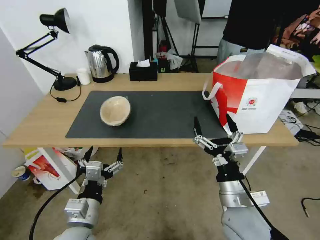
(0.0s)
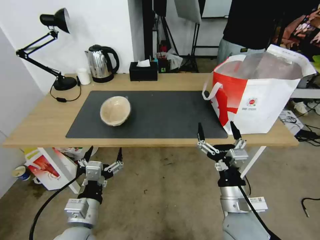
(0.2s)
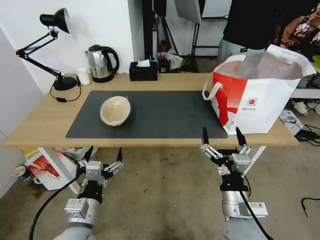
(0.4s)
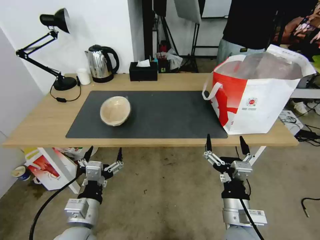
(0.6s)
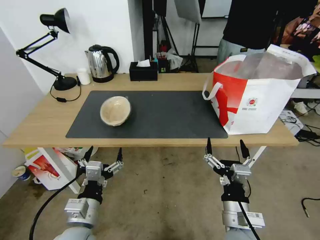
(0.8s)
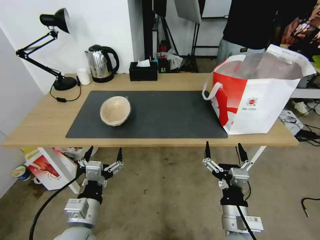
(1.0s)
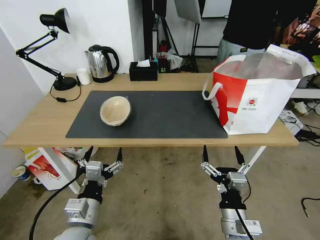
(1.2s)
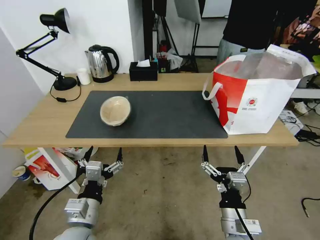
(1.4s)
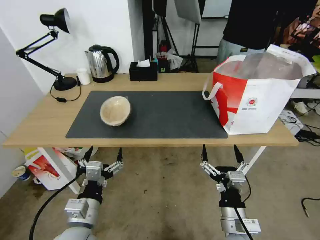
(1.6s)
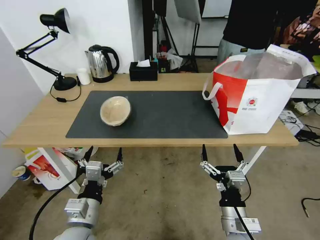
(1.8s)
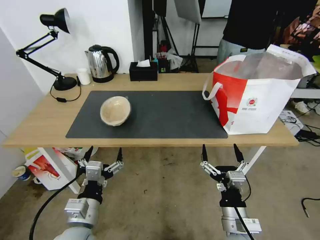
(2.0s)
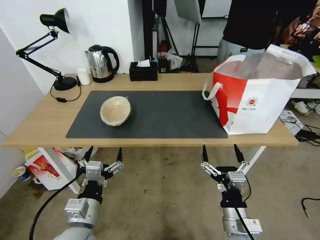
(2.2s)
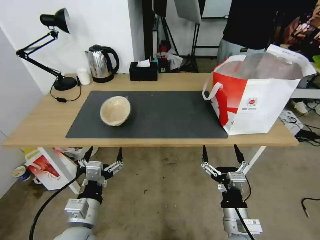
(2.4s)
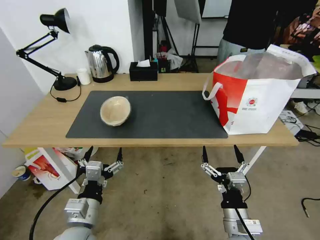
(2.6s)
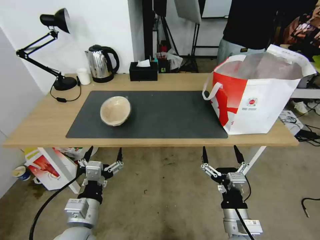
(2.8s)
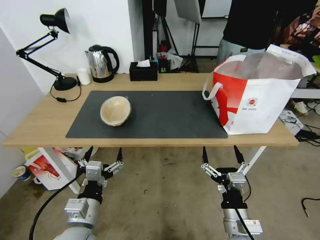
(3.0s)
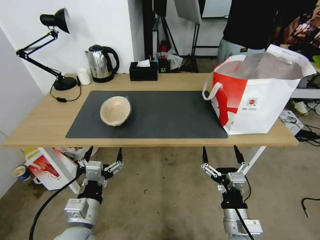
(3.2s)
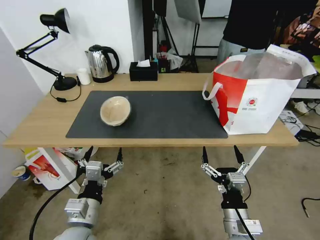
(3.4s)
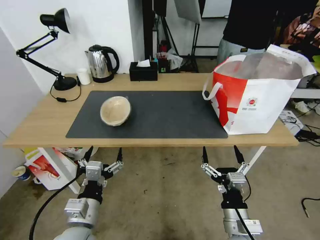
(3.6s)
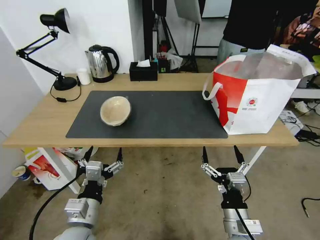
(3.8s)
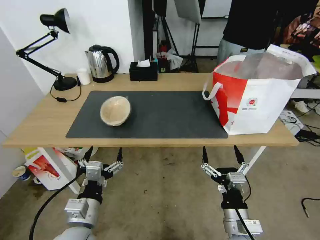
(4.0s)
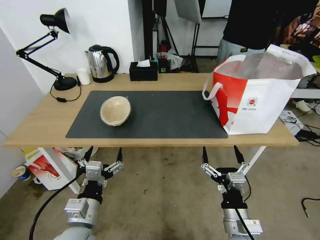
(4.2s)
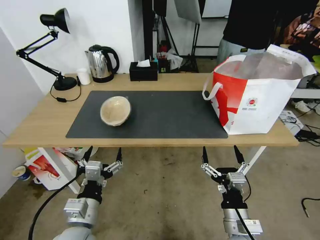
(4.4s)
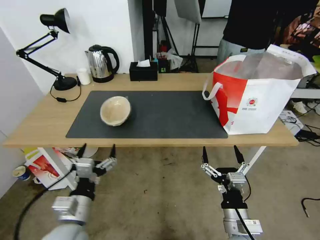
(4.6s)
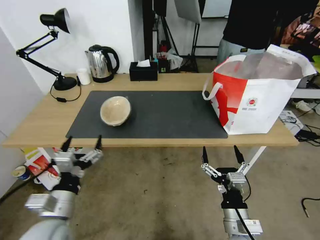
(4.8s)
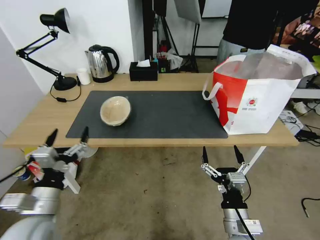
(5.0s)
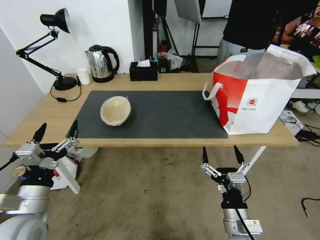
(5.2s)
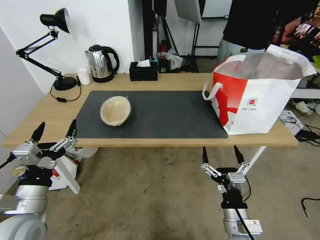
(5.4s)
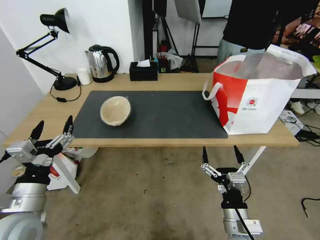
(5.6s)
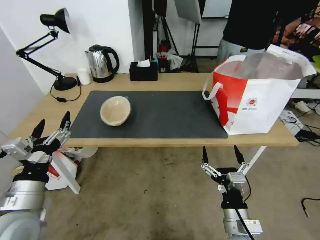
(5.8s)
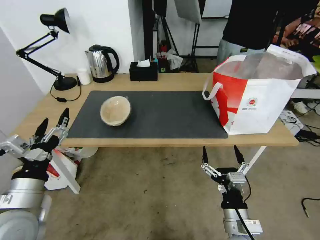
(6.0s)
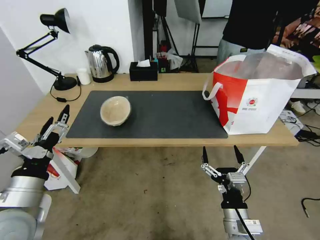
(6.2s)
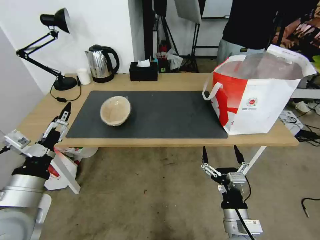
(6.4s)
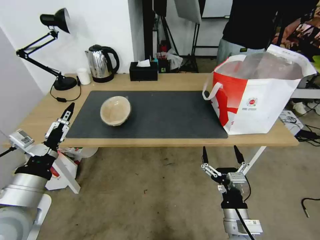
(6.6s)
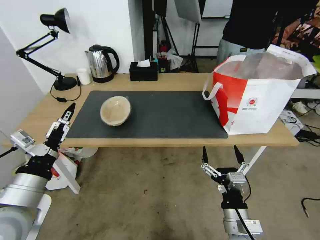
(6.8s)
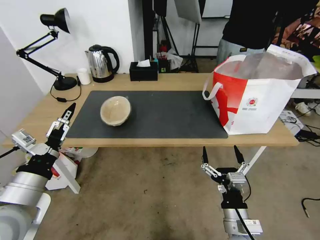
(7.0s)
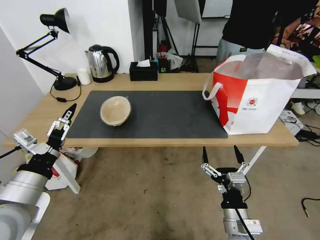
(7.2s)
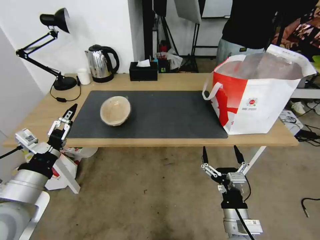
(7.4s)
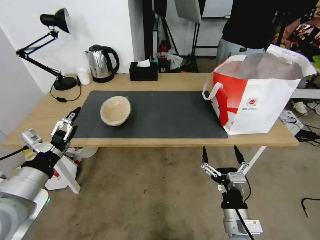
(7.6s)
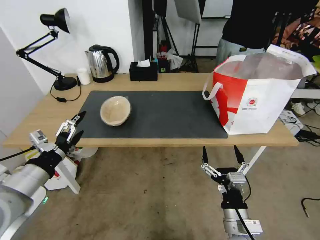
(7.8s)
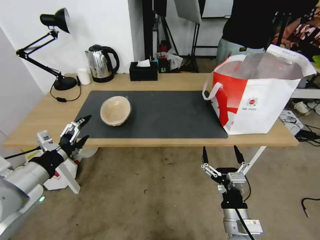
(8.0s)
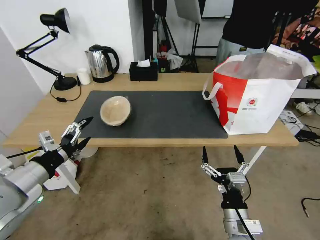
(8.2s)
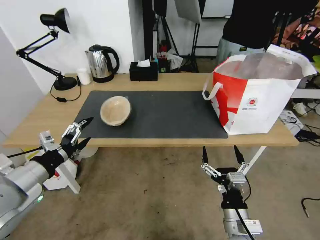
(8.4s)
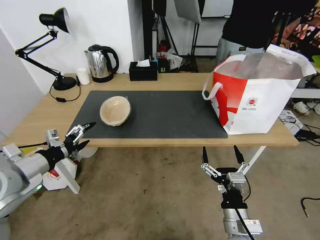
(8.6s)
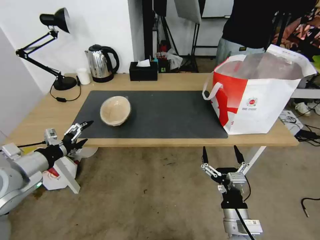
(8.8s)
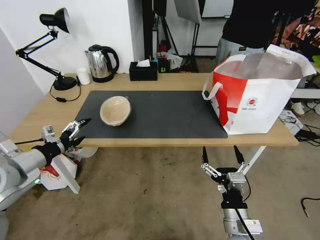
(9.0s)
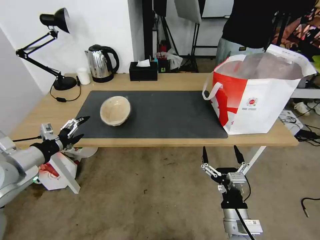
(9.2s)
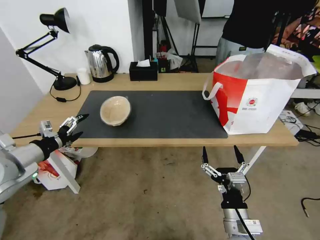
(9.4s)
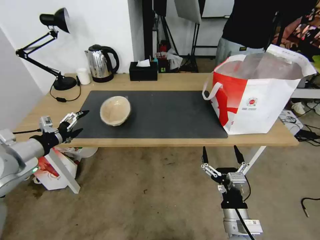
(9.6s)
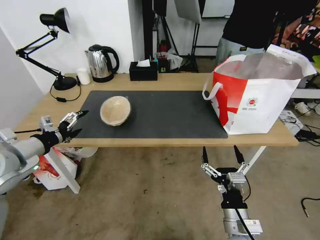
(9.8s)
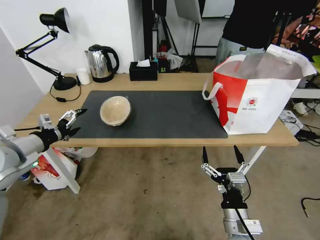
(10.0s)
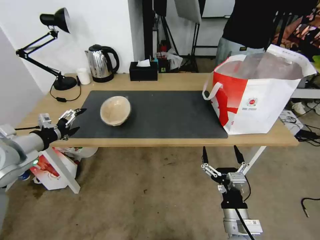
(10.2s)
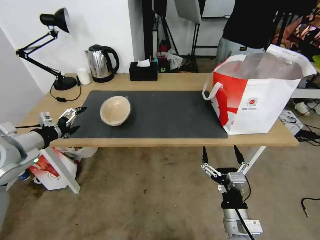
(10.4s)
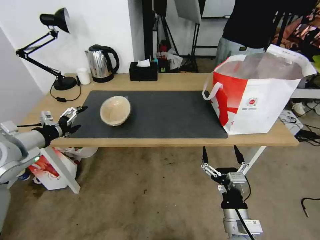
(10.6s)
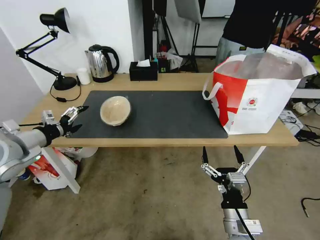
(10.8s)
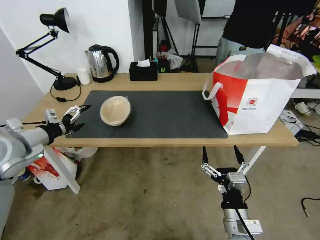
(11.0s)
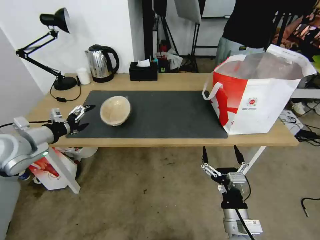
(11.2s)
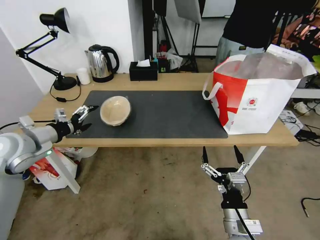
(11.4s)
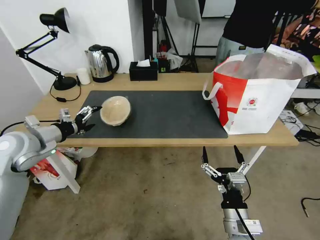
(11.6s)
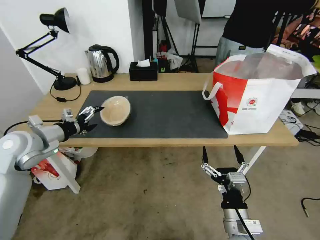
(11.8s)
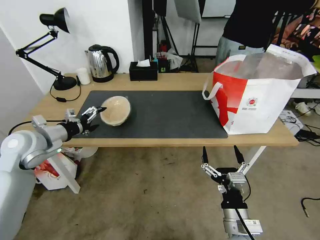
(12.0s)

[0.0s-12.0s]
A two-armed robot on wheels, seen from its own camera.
Task of the whole recording: Pick up the trash from the table and place it into the takeout bag.
0.0s to 1.6s: The right gripper goes roughly 5 cm downward.
1.6s to 4.4s: Both grippers stay about where they are.
4.4s to 6.0s: The left gripper goes roughly 15 cm to the left and upward.
7.6s to 9.0s: The left gripper is displaced to the left and forward by about 10 cm.
9.0s to 10.4s: The left gripper changes place by approximately 5 cm.
10.4s to 12.0s: The left gripper is displaced forward by approximately 5 cm.

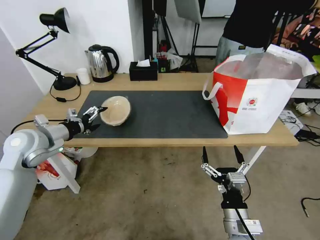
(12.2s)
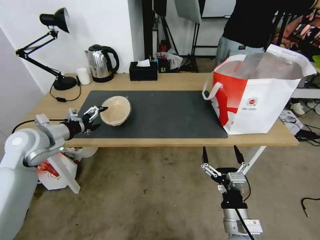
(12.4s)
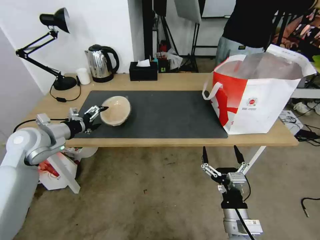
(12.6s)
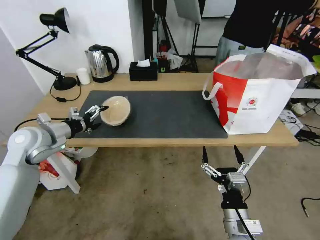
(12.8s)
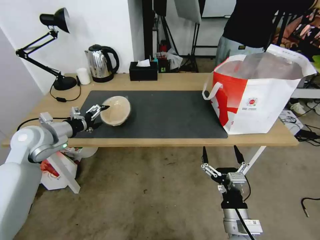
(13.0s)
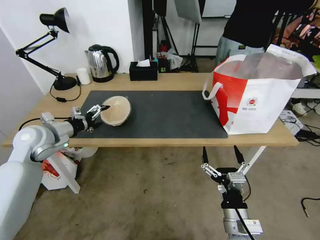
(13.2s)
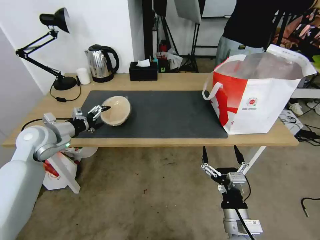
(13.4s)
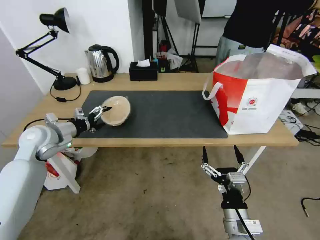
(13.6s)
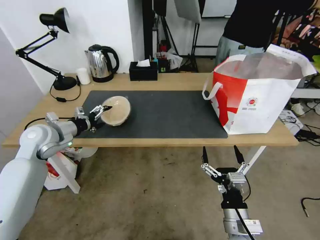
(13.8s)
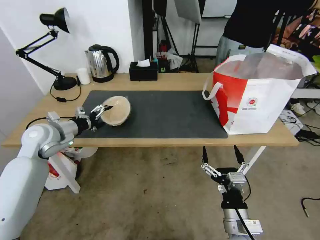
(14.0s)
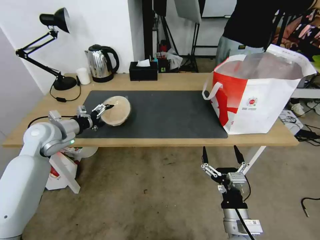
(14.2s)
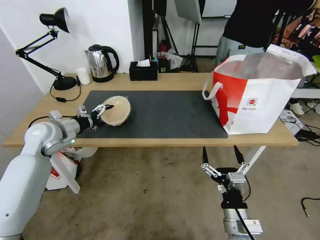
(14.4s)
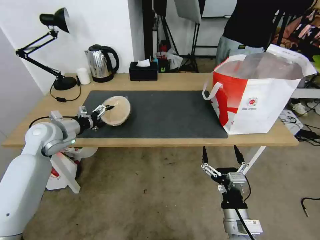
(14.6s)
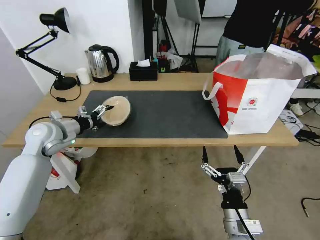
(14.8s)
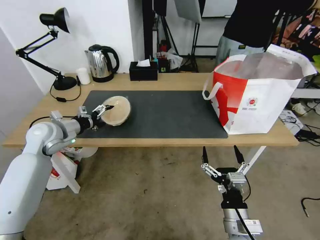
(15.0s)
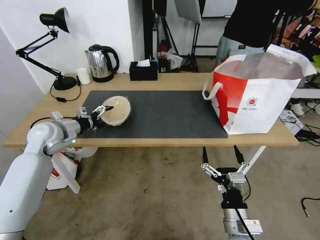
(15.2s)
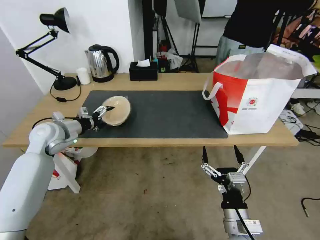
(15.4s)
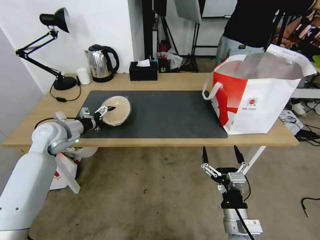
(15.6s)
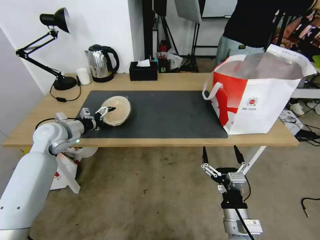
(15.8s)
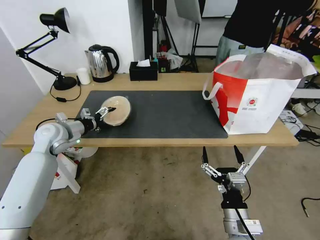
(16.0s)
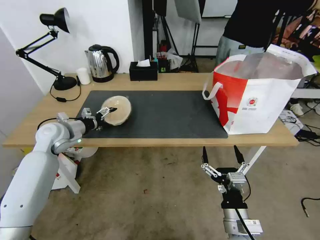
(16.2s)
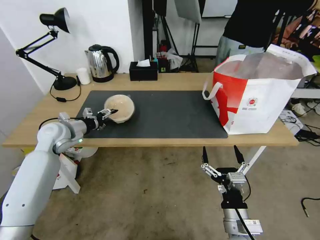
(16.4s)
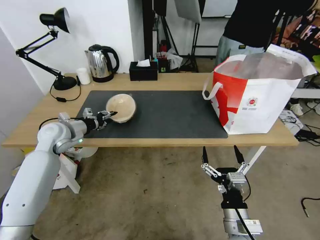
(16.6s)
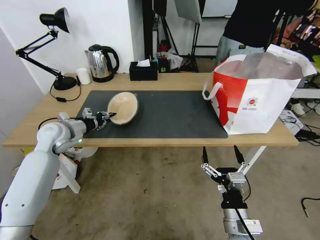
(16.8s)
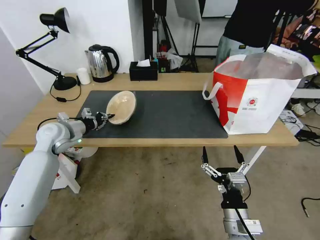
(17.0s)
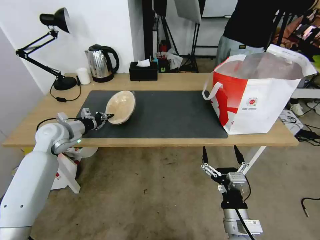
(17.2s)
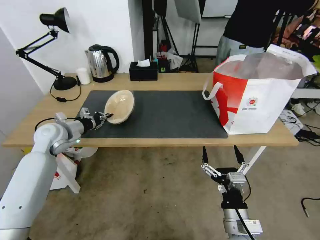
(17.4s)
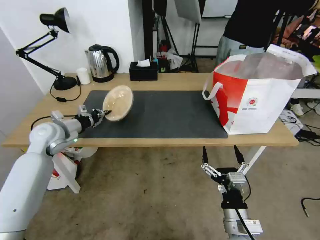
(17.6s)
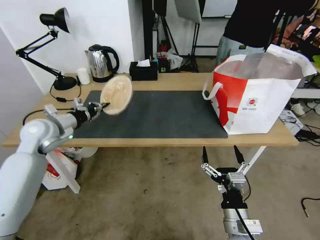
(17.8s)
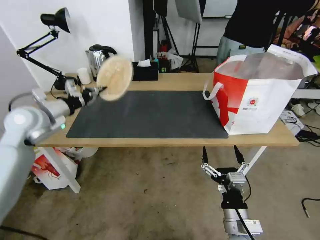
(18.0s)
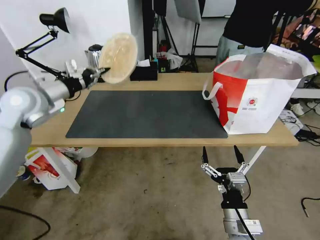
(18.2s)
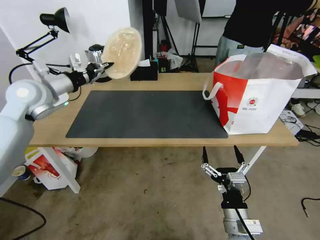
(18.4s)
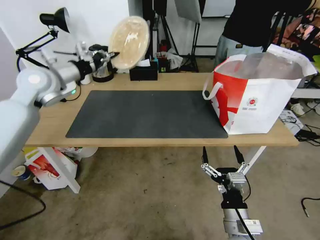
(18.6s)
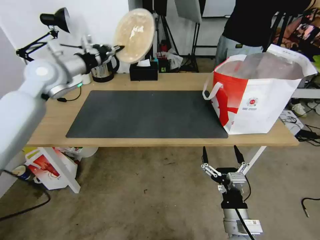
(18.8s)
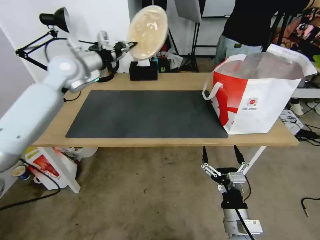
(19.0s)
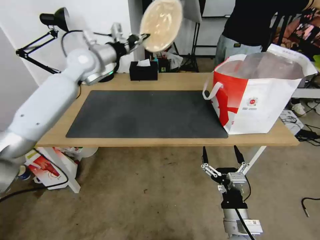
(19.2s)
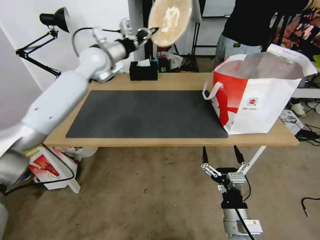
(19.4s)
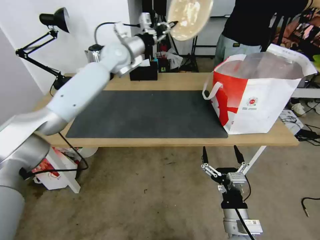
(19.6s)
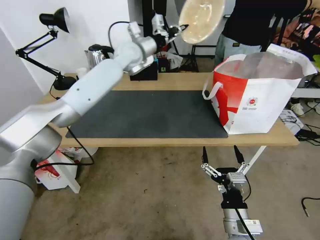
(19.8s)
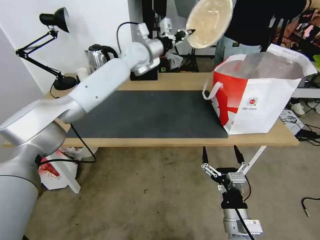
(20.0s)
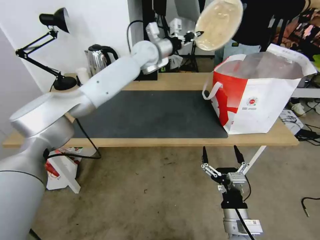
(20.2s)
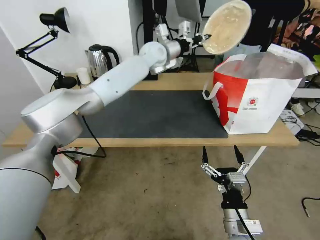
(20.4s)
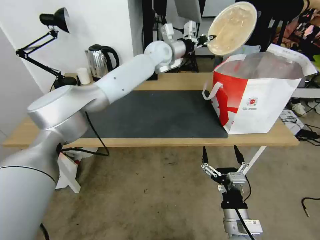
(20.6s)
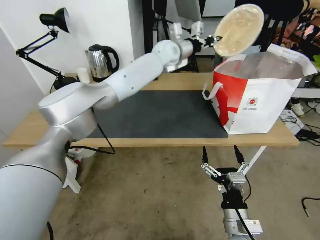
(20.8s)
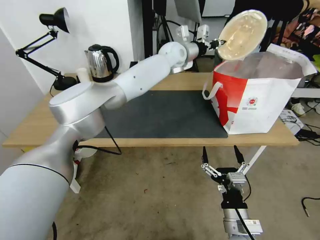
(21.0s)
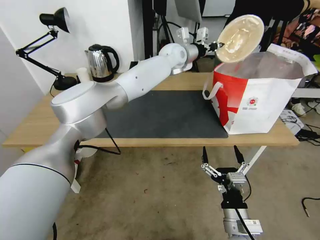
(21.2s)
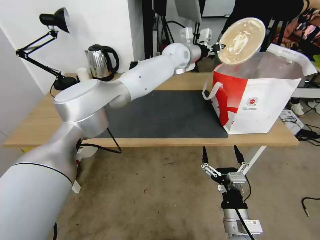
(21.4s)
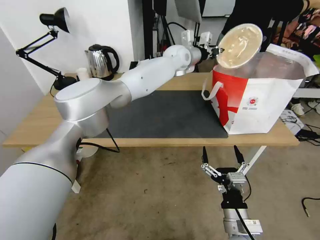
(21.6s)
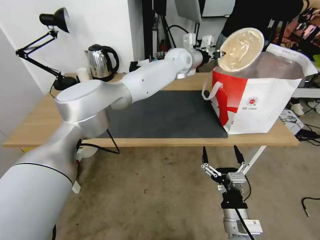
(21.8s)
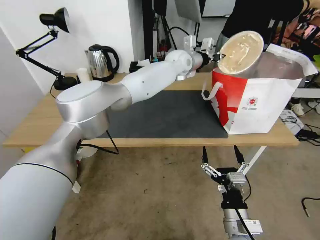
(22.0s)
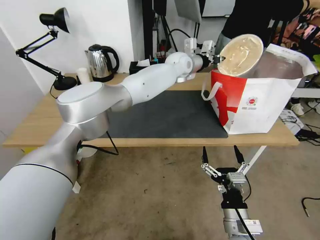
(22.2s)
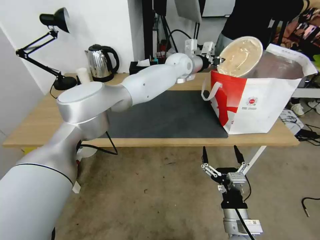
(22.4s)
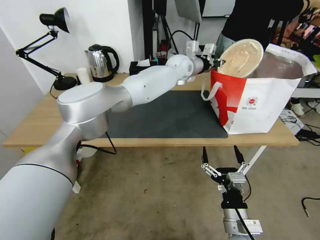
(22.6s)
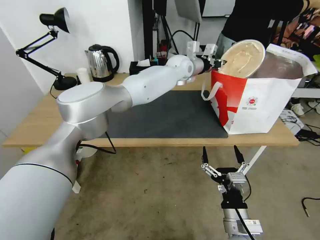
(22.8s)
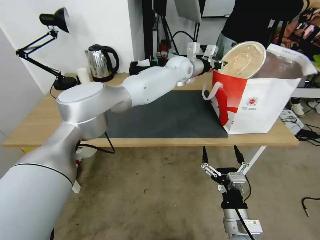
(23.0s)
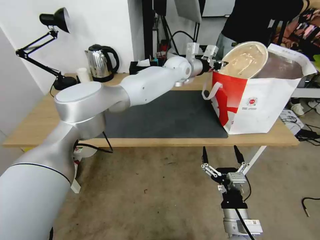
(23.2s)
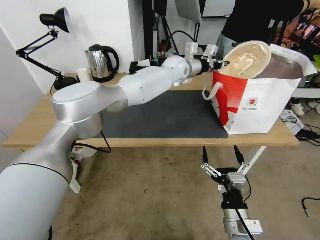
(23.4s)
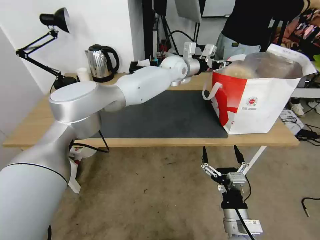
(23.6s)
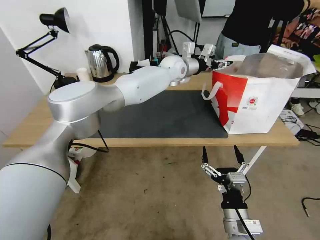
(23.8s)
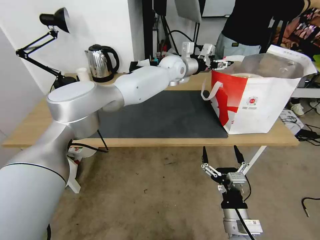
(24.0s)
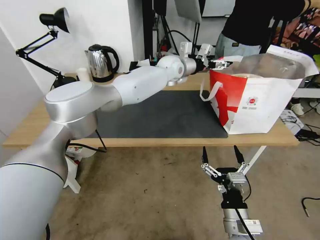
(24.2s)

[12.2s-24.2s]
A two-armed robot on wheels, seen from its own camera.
Task of the whole recording: Pick up the trash from the table and place it into the takeout bag.
12.2s to 13.8s: There are only small adjustments of the grippers.
13.8s to 15.2s: The grippers make only small movements.
15.2s to 16.6s: The left gripper closes its fingers.
16.6s to 18.2s: The left gripper is displaced upward by roughly 15 cm, and closes its fingers.
18.2s to 19.8s: The left gripper goes approximately 30 cm to the right and forward.
19.8s to 21.2s: The left gripper heads to the right, covering roughly 15 cm.
21.2s to 22.6s: The grippers stay close to where they were, moving slightly.
22.6s to 24.2s: The left gripper opens up.
